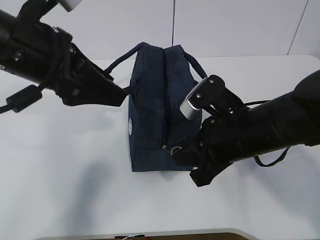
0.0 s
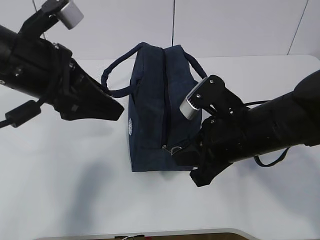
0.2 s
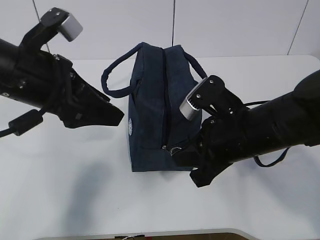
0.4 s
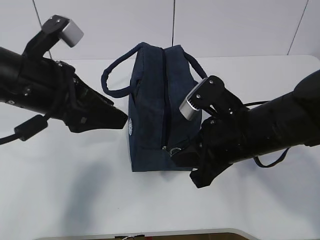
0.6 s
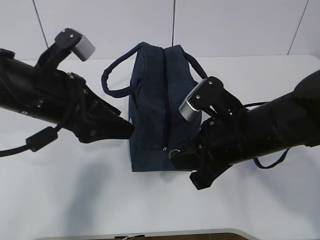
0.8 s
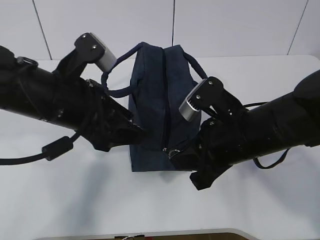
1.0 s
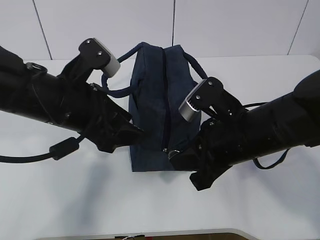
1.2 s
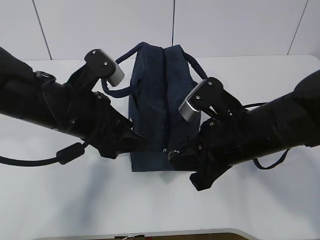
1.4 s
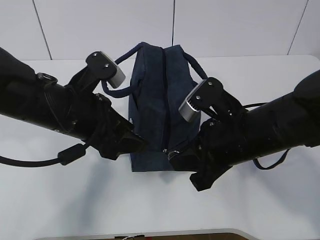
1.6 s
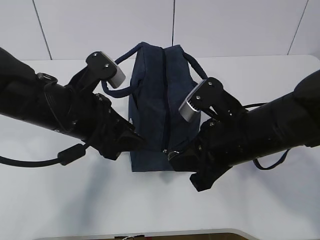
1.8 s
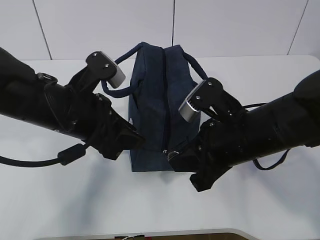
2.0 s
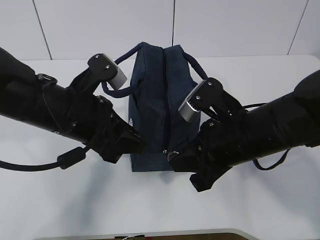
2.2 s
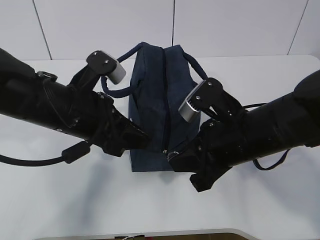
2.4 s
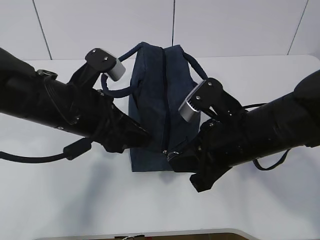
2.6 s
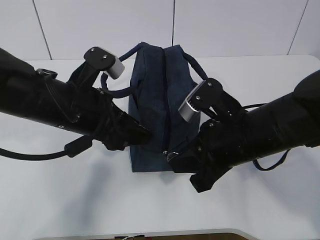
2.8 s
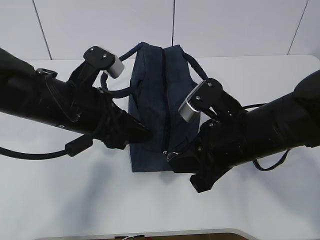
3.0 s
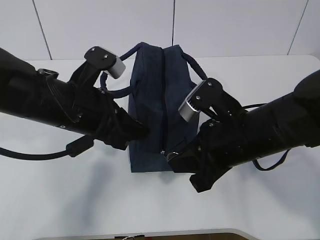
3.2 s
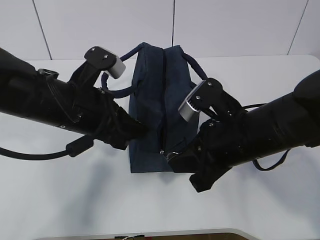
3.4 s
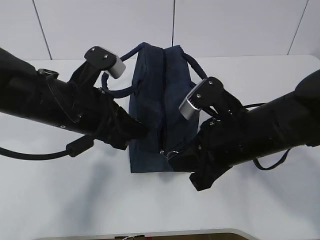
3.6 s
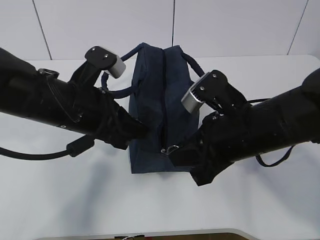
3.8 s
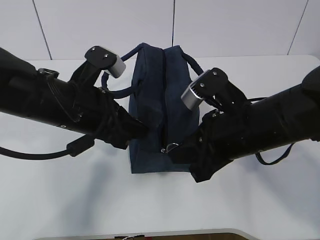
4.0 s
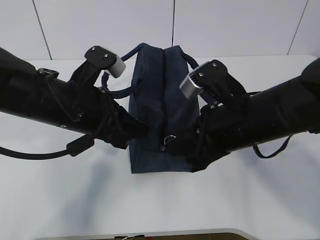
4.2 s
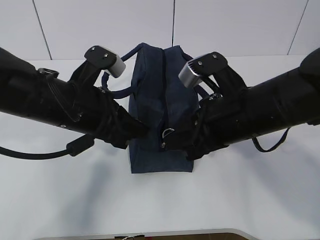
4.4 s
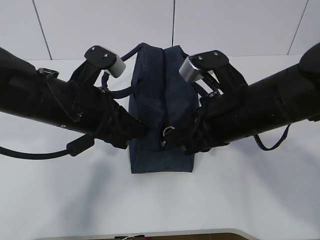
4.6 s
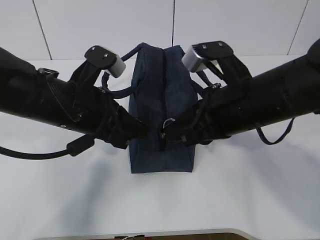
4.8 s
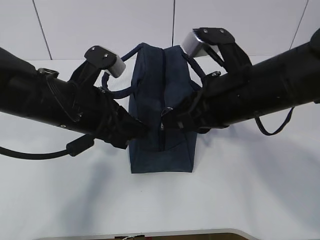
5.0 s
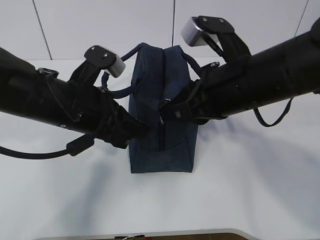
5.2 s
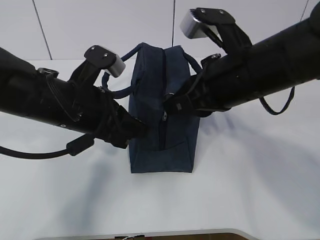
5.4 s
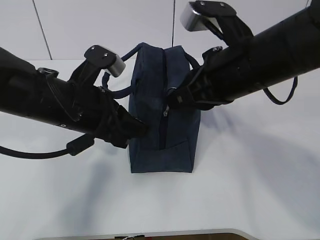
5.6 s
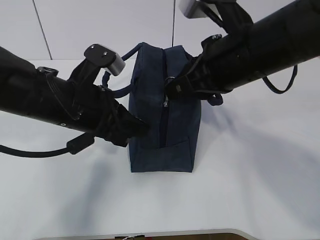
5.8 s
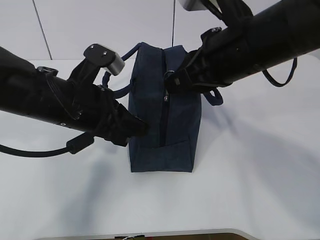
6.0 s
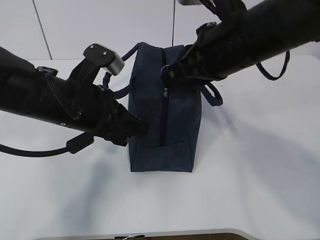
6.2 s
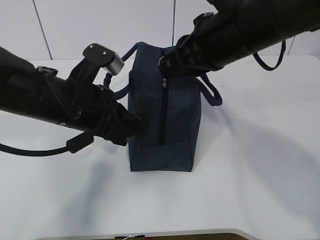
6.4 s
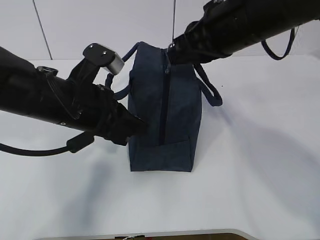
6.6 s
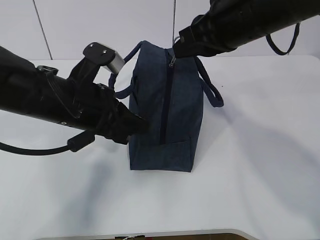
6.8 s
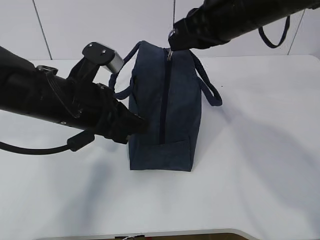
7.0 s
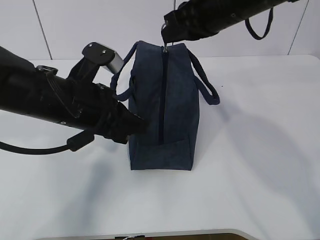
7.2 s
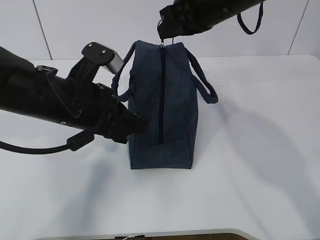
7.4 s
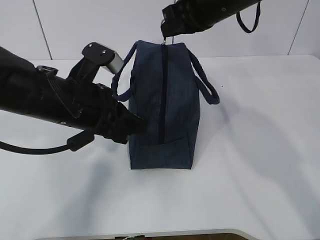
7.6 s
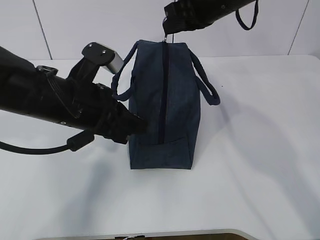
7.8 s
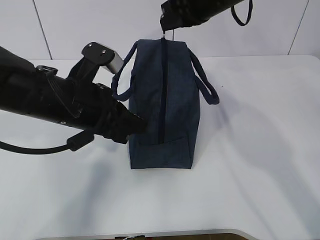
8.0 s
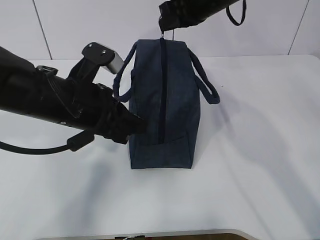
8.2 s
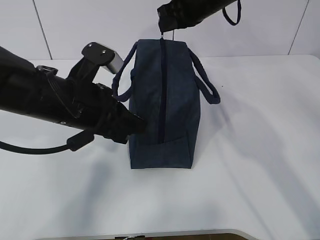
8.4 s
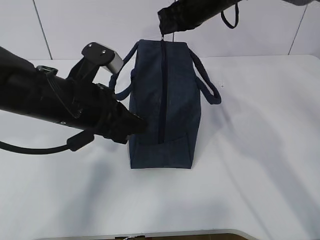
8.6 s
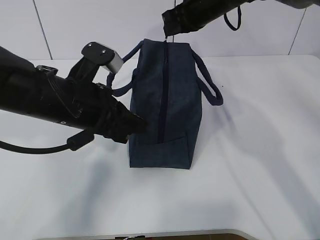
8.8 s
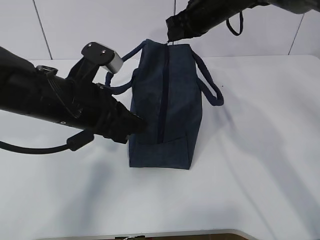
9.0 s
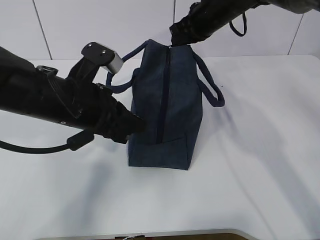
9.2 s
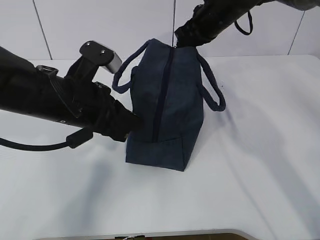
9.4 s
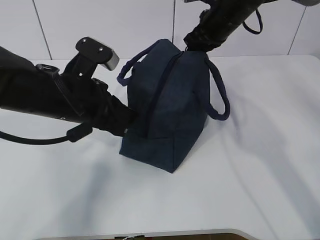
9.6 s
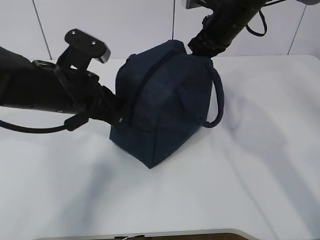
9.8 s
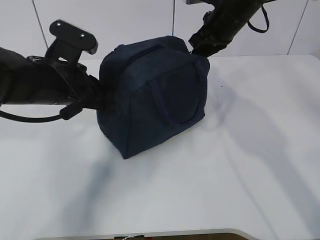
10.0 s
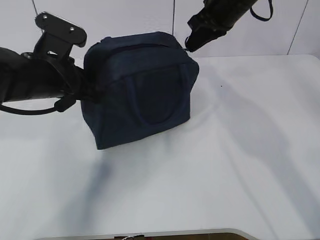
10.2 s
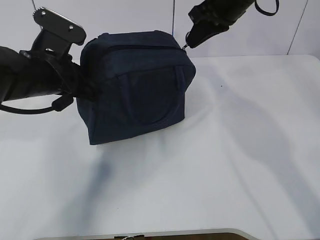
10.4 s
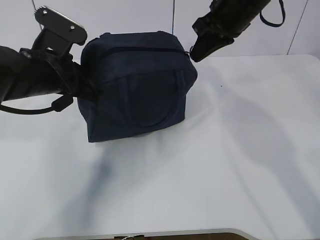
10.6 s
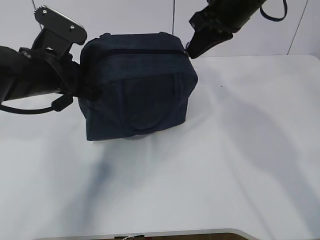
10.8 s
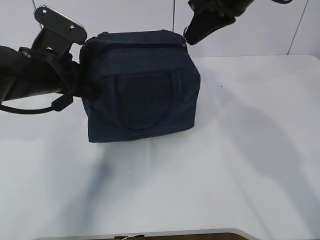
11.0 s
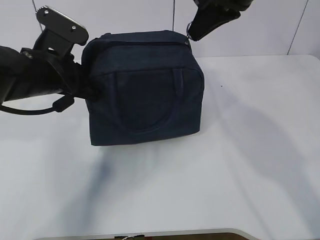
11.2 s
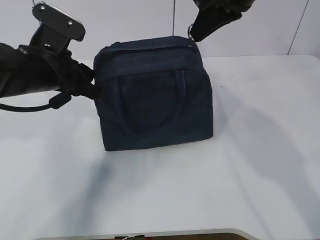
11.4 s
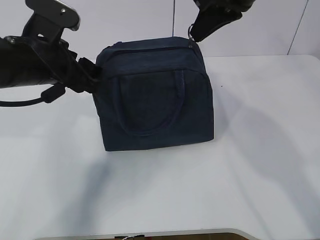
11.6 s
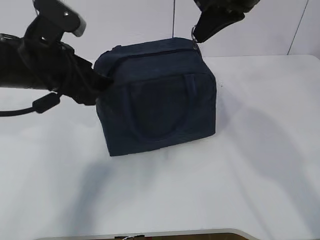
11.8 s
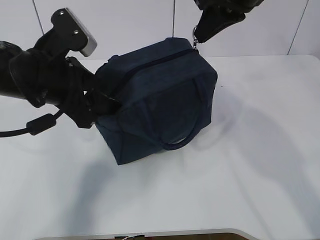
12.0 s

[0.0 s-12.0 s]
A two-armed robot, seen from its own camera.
Step, 1.4 to 10.6 s: Pull the zipper with your right hand.
Step, 10.8 to 11.6 s: Grab the lunch bag with your left hand.
0.0 to 1.6 s: The left gripper travels downward by approximately 10 cm.
1.6 to 3.0 s: The grippers make only small movements.
3.0 to 4.4 s: The left gripper closes up.
4.4 to 6.0 s: The right gripper is displaced upward by some 10 cm.
6.0 to 7.6 s: The right gripper heads forward, covering roughly 10 cm.
7.6 to 9.0 s: The right gripper moves forward, some 10 cm.
9.0 to 10.4 s: The right gripper travels backward by some 5 cm. The left gripper moves about 5 cm.
10.4 to 12.0 s: The left gripper opens; the right gripper goes roughly 5 cm backward.

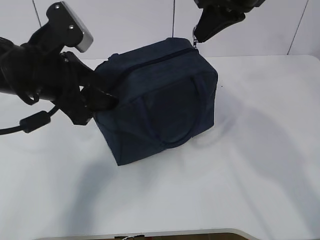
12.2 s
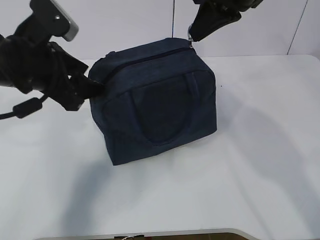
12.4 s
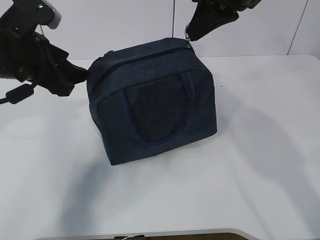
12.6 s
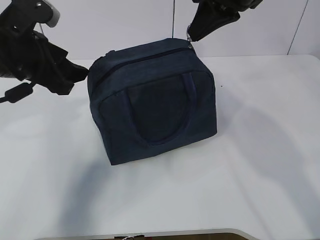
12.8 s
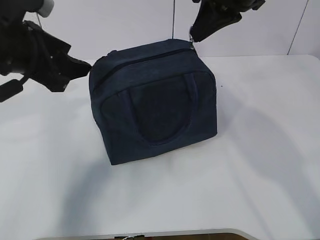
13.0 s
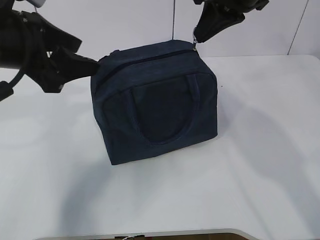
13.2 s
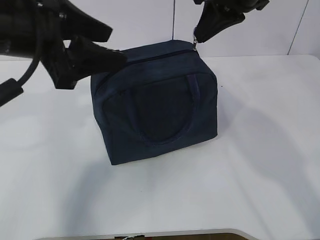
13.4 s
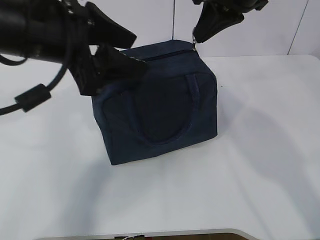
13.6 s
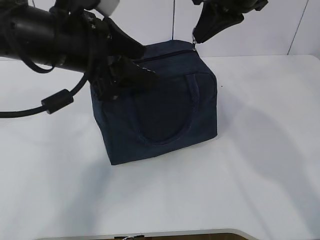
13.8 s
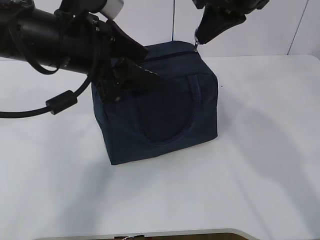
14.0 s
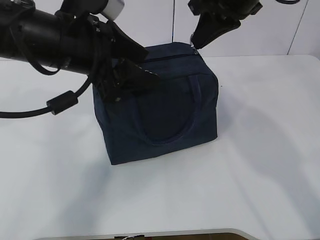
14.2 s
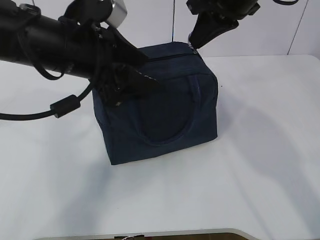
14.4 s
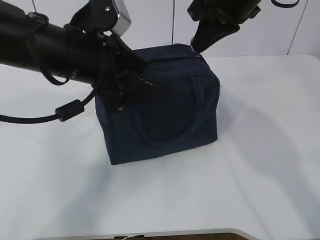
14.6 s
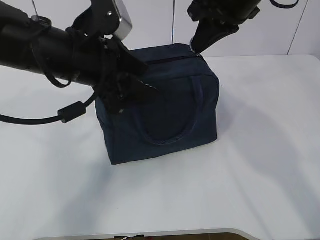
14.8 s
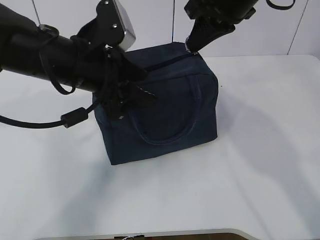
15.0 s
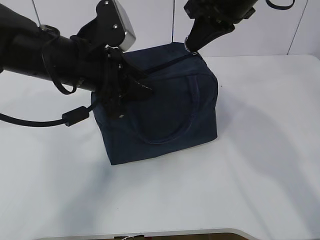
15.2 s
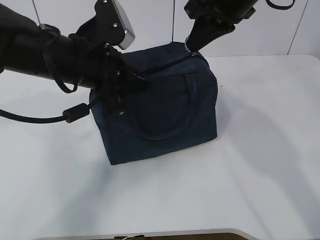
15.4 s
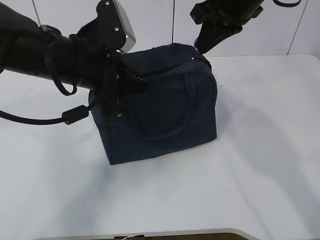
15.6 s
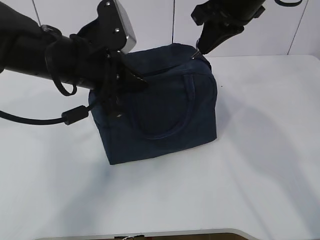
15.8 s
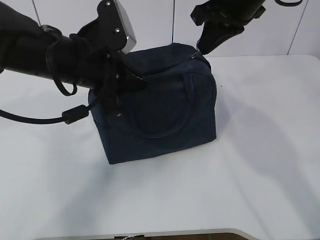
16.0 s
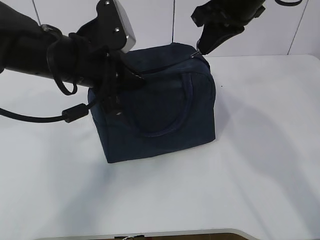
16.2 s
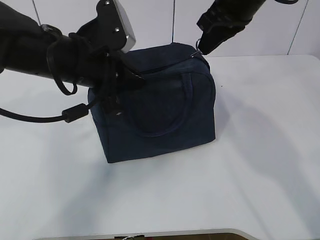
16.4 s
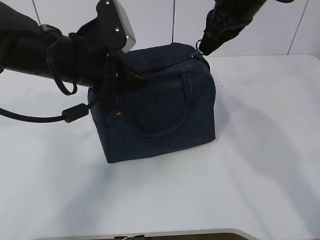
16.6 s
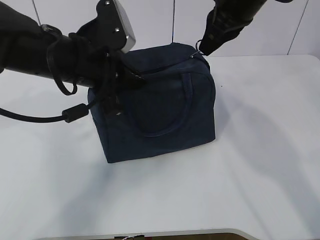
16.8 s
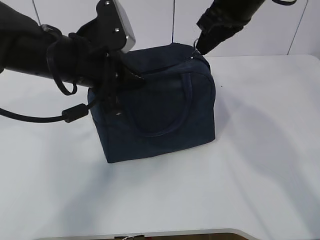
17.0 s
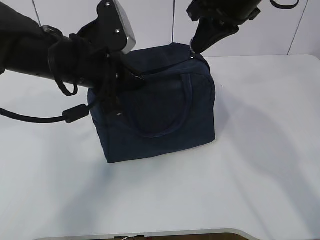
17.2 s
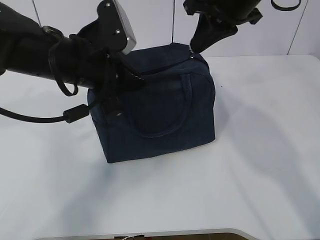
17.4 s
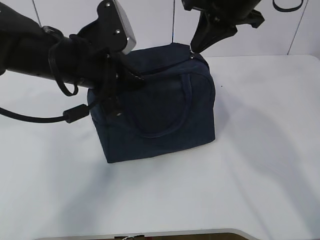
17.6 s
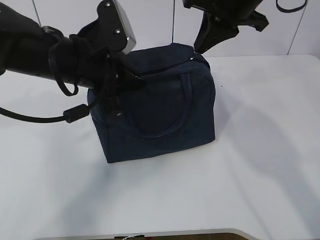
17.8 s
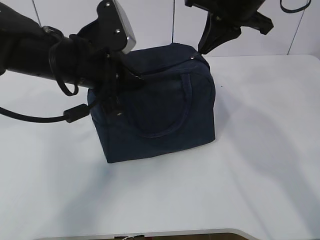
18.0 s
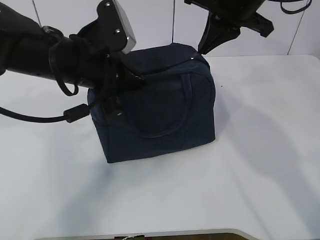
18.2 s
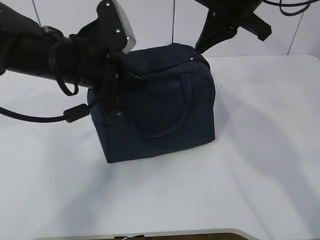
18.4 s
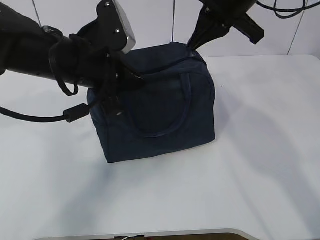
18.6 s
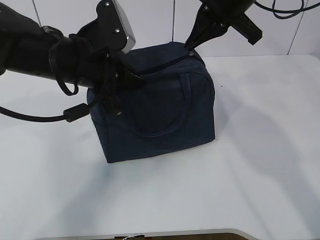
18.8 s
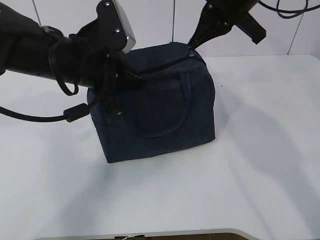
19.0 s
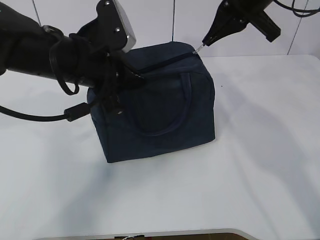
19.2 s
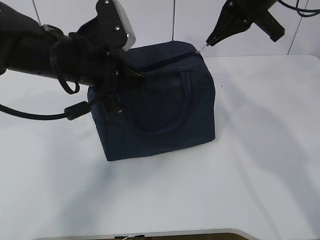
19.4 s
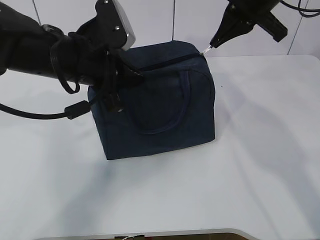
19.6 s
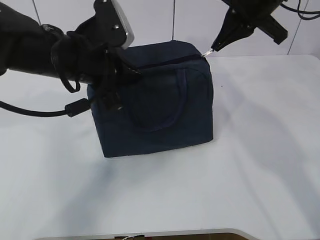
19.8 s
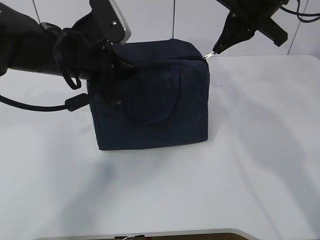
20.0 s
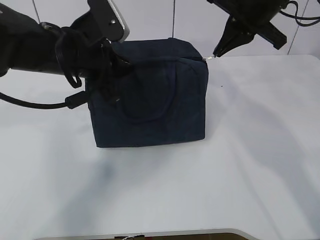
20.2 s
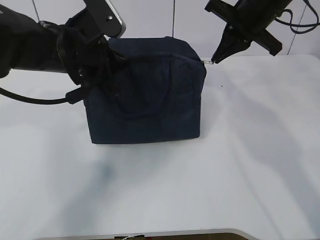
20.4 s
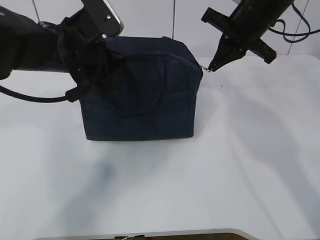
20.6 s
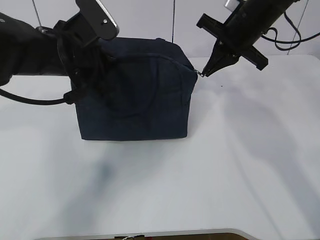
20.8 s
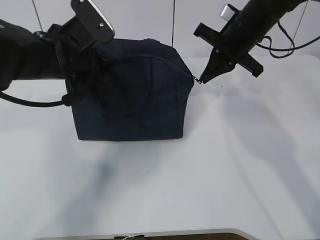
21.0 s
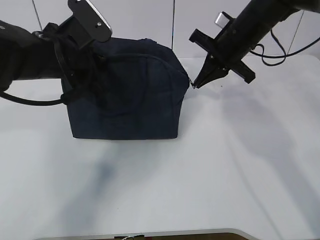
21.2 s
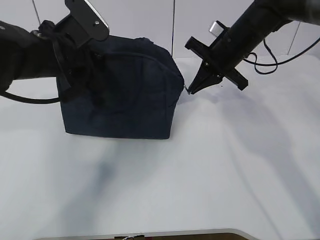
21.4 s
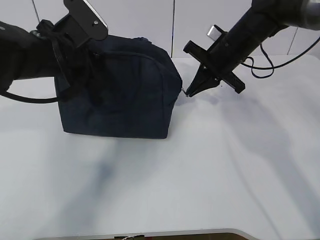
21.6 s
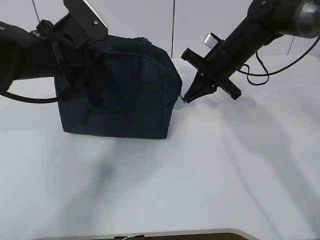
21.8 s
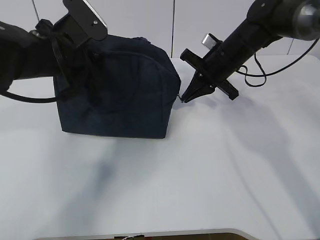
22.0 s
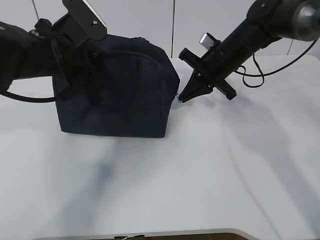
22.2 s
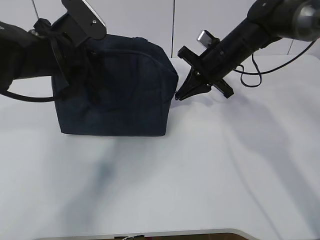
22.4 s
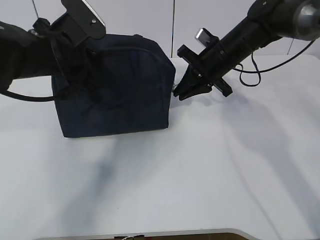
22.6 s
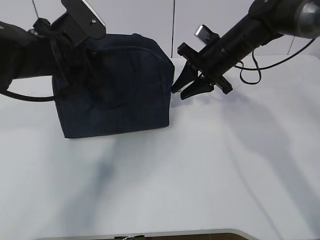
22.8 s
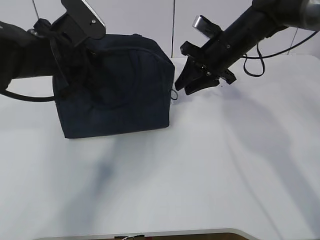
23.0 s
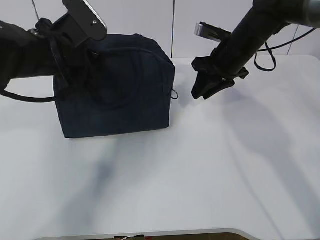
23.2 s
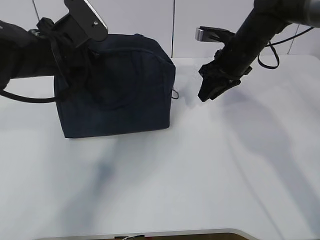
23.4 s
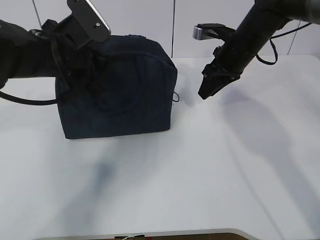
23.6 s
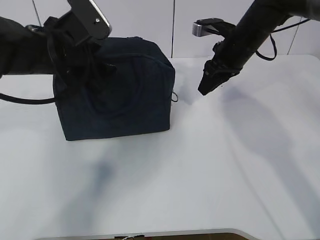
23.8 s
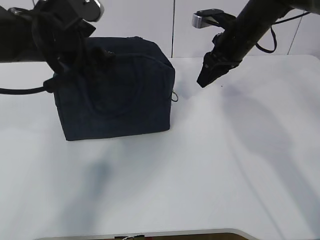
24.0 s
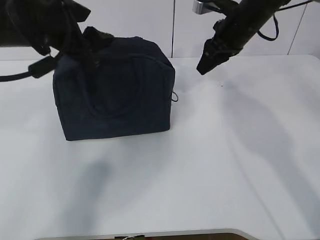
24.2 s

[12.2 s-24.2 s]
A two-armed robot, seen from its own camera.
12.2 to 13.8 s: The left gripper moves approximately 5 cm.
13.8 to 15.2 s: The grippers move only a little.
15.2 to 16.6 s: The left gripper closes its fingers.
19.8 to 21.2 s: The right gripper moves downward, some 10 cm.
21.2 to 22.6 s: There are only small adjustments of the grippers.
22.6 to 24.2 s: Both grippers move upward, roughly 5 cm. The left gripper opens its fingers.
